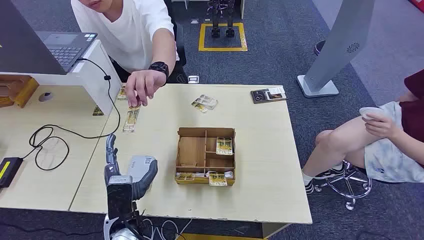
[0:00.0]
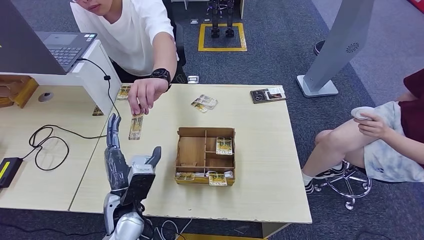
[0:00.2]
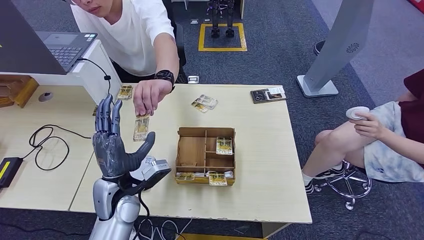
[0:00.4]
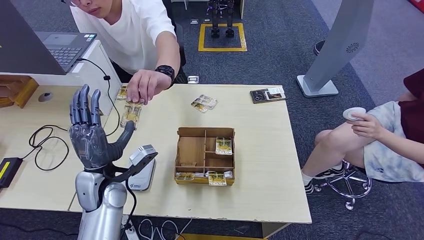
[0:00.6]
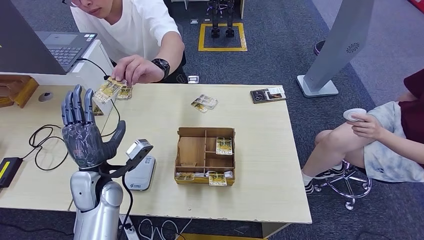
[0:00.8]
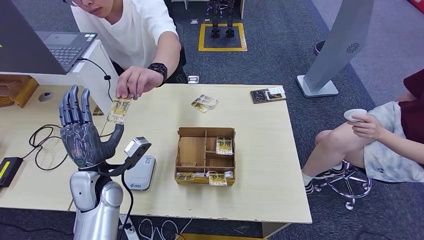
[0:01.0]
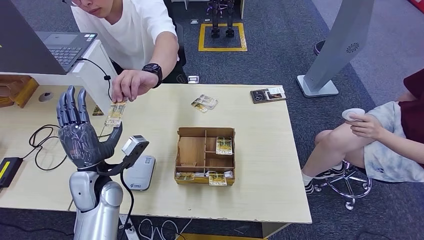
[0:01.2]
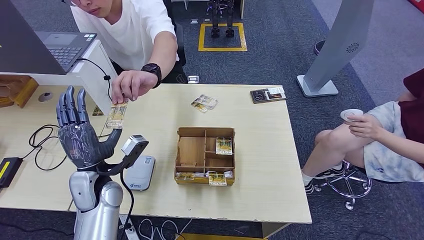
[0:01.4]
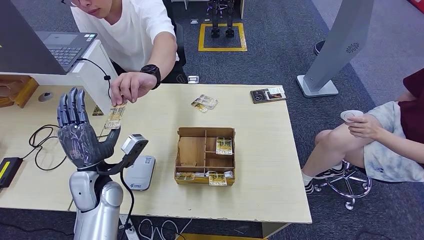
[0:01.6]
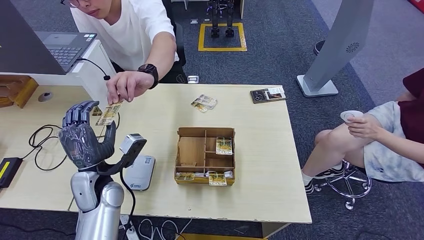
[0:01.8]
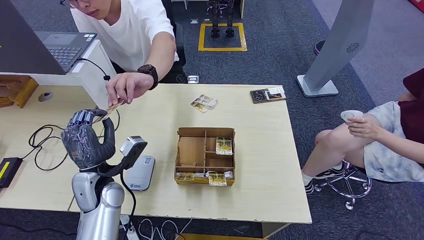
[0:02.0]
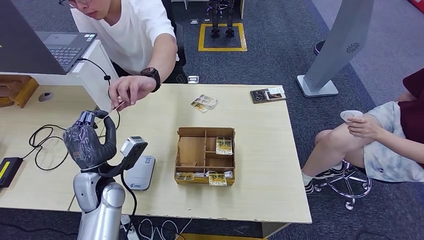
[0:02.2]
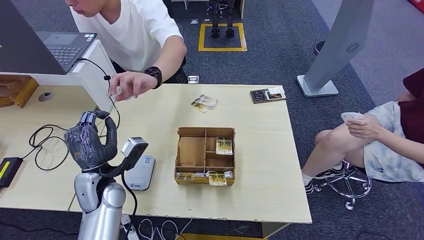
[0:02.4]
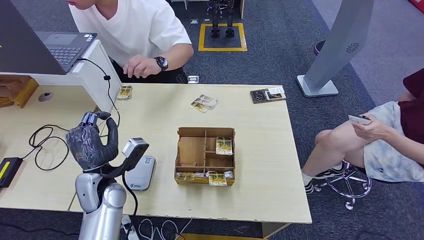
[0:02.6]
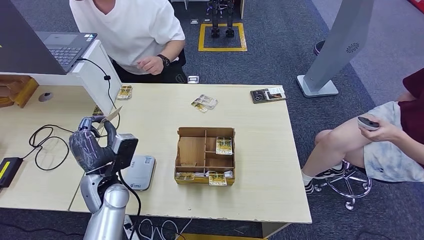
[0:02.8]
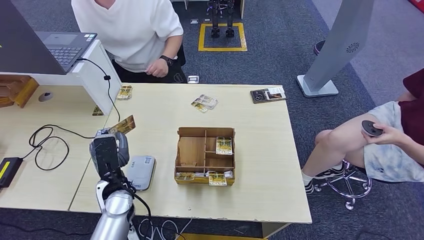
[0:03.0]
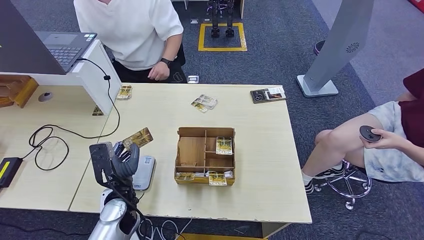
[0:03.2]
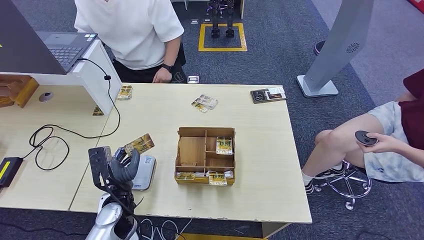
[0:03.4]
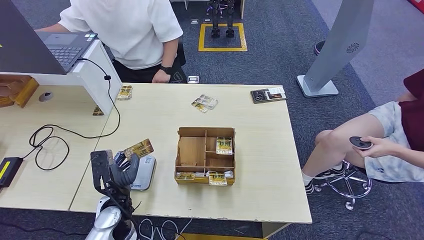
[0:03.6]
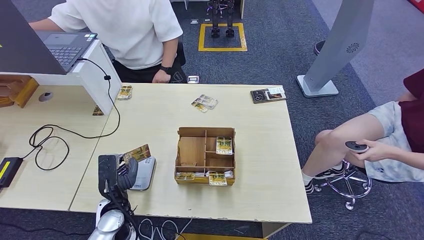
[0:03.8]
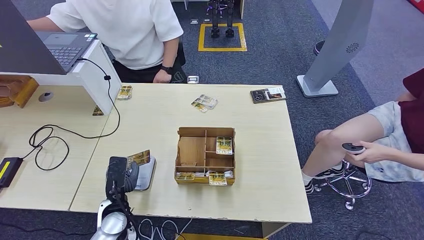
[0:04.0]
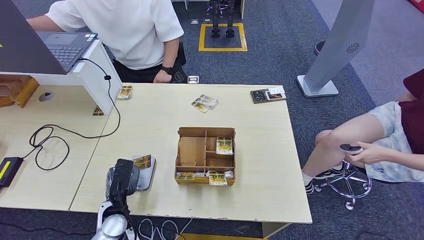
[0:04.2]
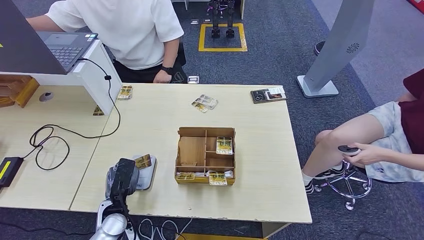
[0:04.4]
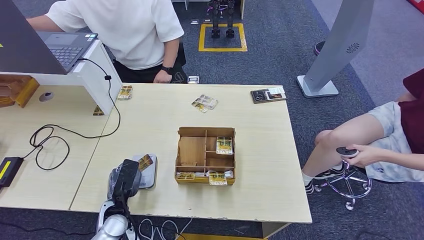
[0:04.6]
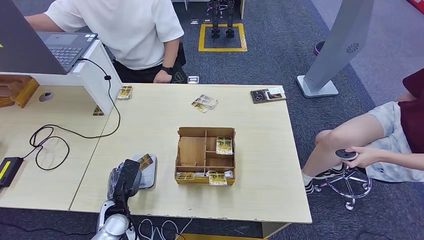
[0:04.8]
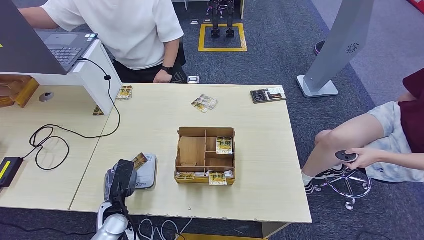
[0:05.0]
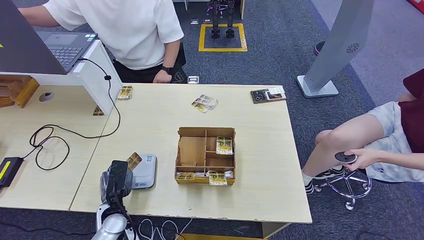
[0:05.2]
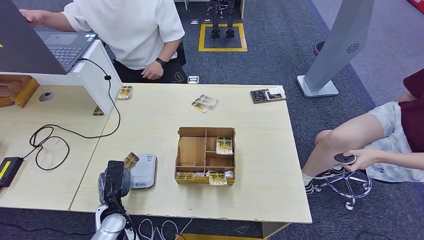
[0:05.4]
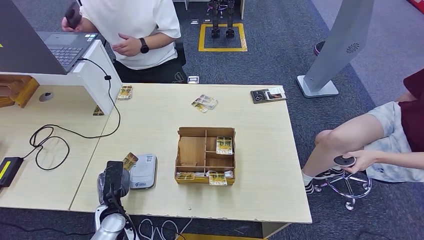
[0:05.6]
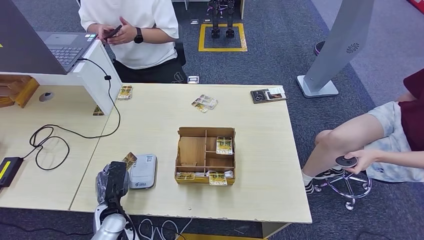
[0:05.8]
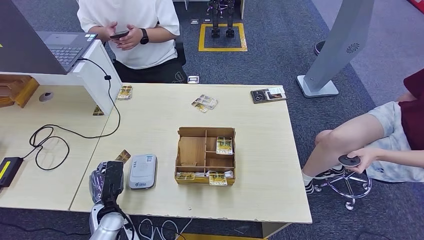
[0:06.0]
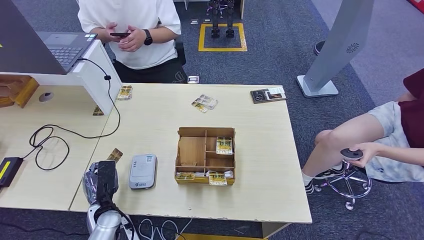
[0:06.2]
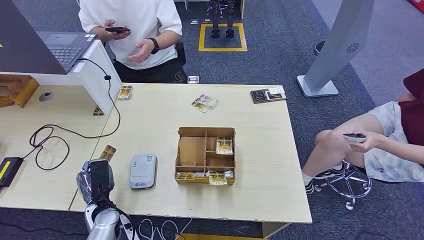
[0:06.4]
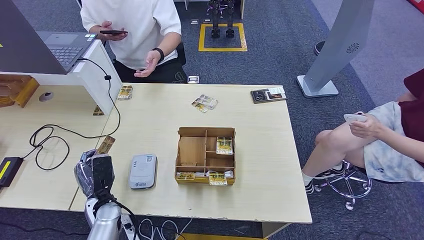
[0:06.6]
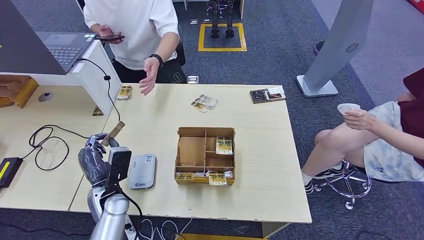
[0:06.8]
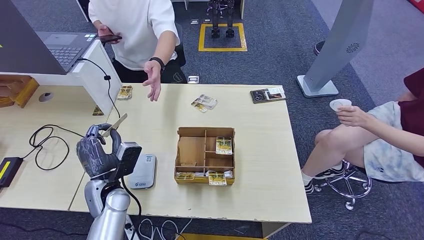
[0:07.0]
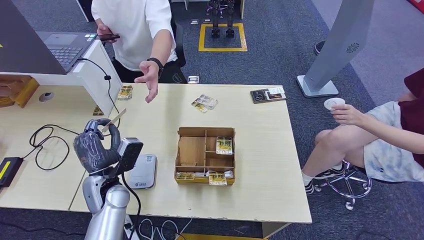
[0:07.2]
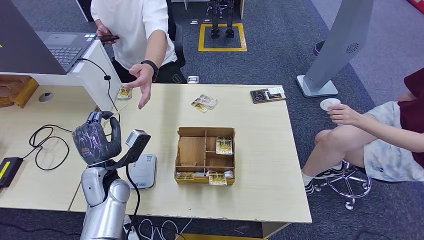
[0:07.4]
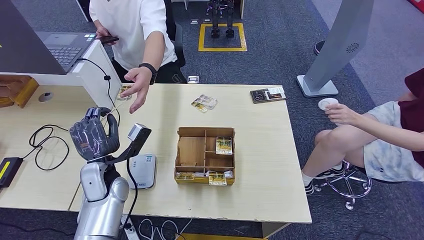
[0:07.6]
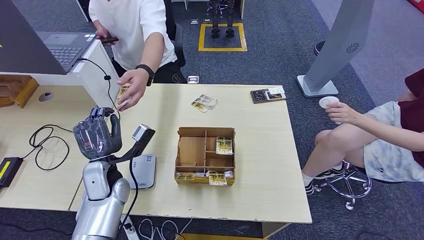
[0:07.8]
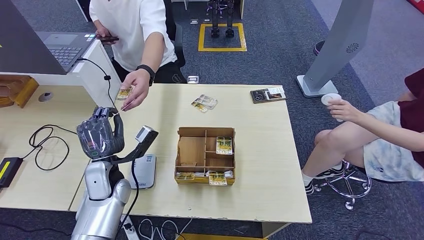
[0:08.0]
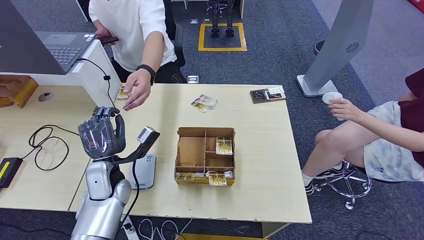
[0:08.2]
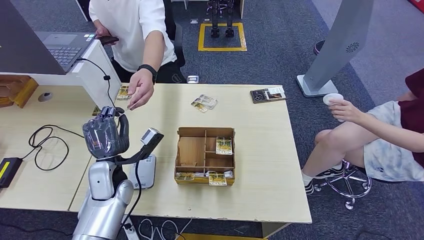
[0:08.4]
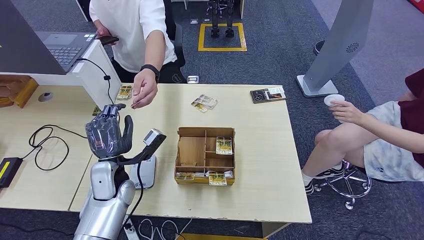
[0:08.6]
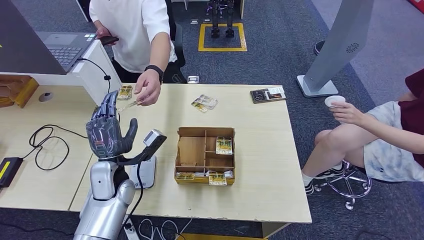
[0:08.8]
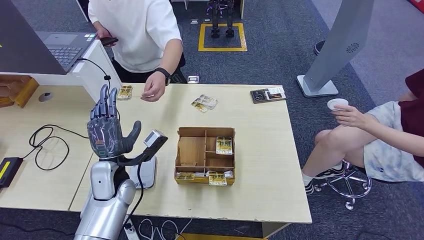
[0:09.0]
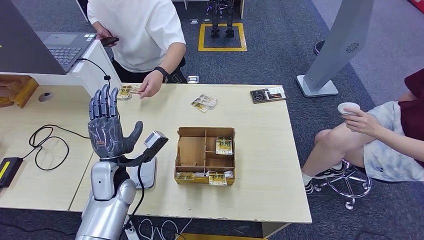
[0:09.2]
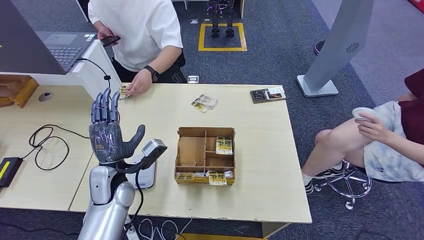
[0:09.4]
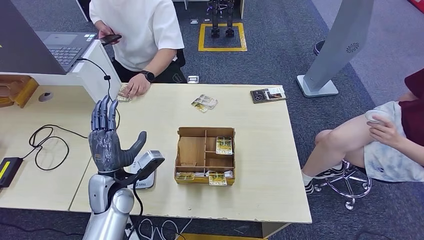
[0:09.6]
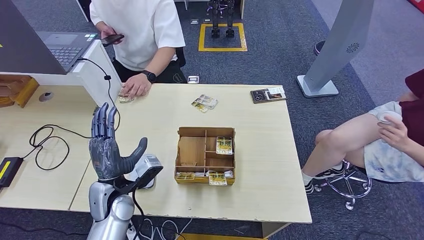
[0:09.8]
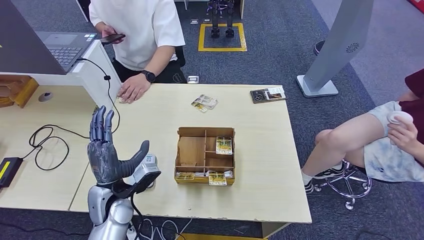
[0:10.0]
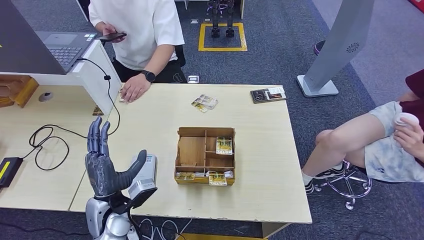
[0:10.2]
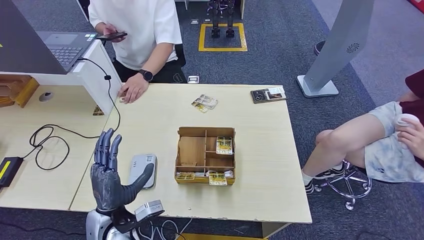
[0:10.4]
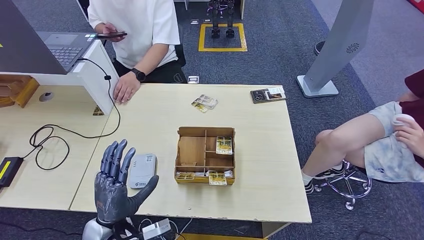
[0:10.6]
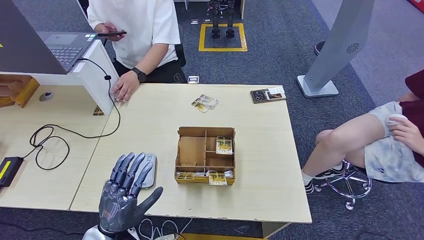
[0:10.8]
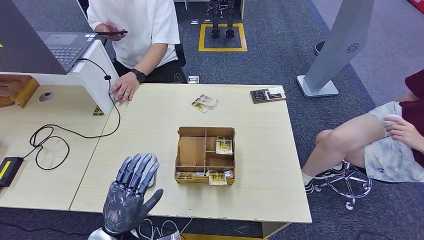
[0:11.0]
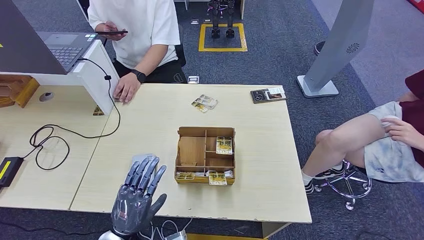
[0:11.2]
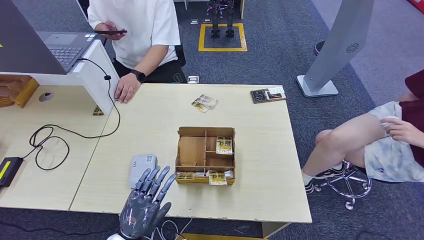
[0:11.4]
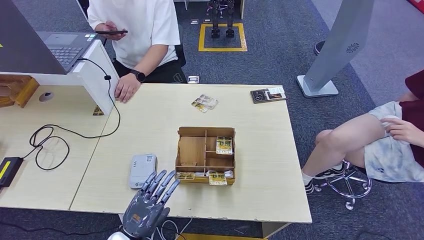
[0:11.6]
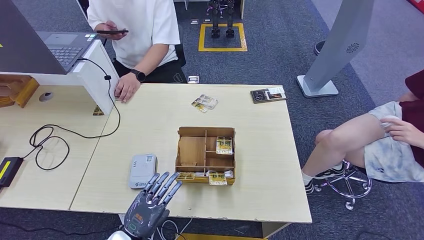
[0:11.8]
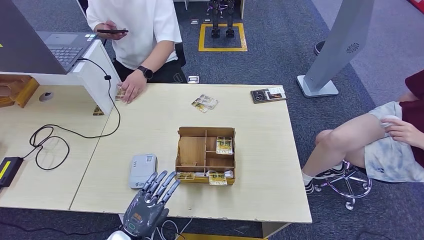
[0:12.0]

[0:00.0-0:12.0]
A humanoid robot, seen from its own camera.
Step, 0:00.0 to 0:02.8: Take the ID card from the person's hand.
Step, 0:03.0 to 0:06.2: Place the ID card on the card reader.
Step, 0:06.4 to 0:09.0: Hand the ID card to the person.
0:01.6 to 0:03.0: The left hand changes place by some 5 cm.
0:03.0 to 0:04.4: The left hand shifts roughly 10 cm downward.
0:04.4 to 0:06.0: There are only small adjustments of the hands.
0:06.0 to 0:07.6: The left hand moves upward and forward, about 15 cm.
0:07.6 to 0:09.0: The hands move only a little.
0:09.0 to 0:10.4: The left hand shifts roughly 10 cm backward.
0:10.4 to 0:12.0: The left hand changes place by roughly 5 cm.

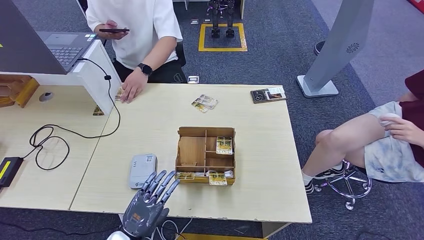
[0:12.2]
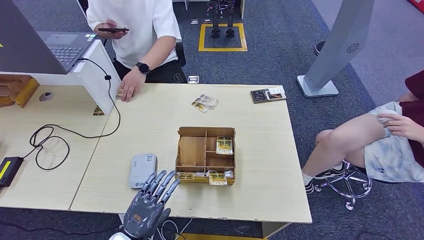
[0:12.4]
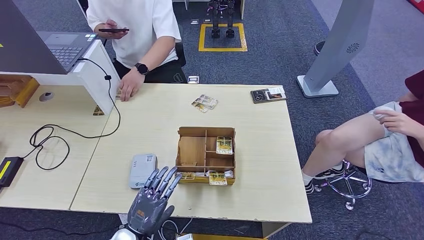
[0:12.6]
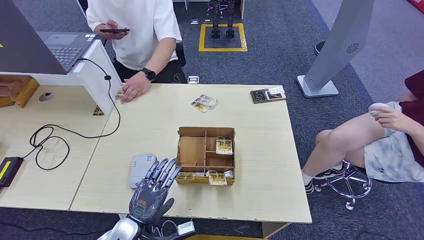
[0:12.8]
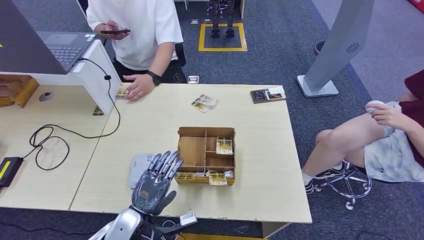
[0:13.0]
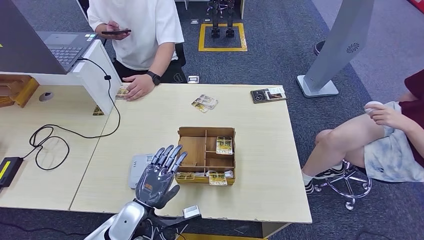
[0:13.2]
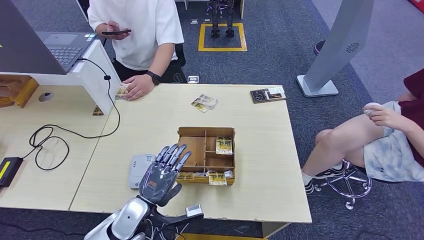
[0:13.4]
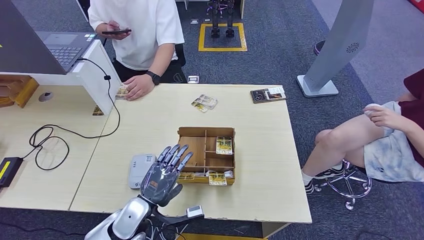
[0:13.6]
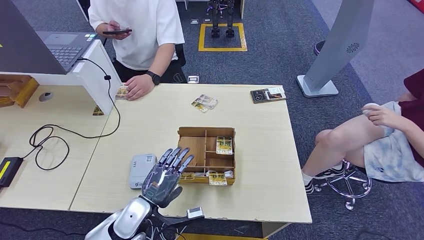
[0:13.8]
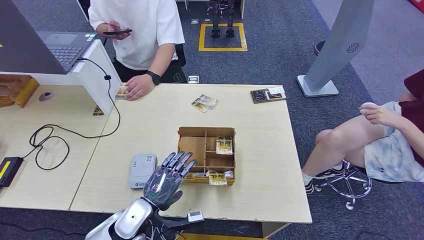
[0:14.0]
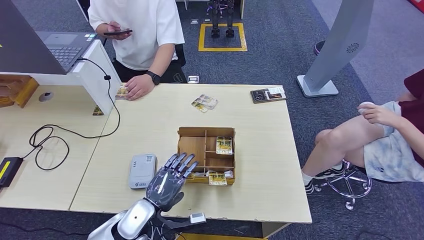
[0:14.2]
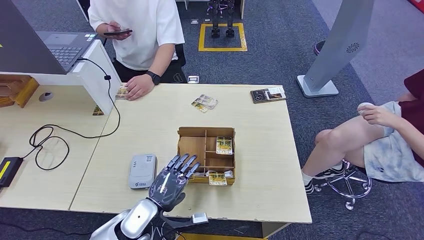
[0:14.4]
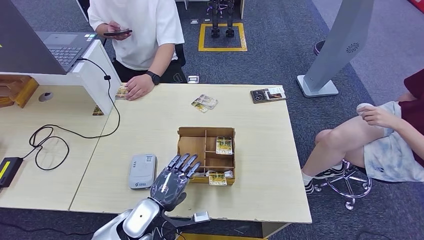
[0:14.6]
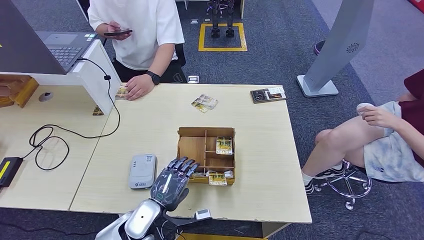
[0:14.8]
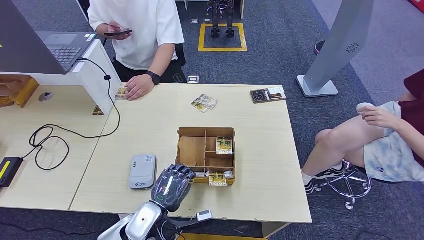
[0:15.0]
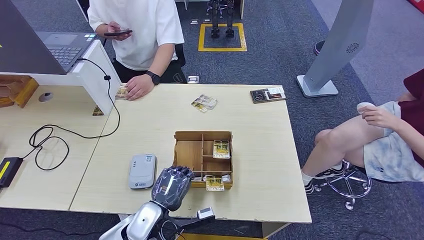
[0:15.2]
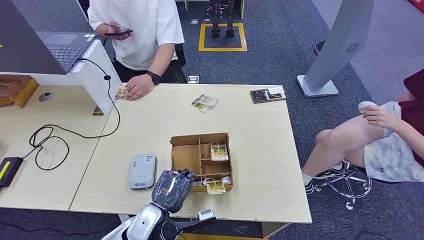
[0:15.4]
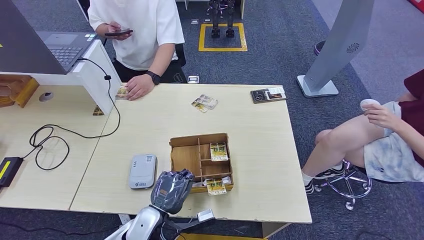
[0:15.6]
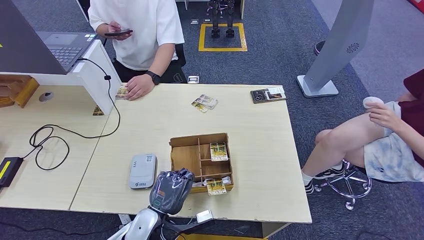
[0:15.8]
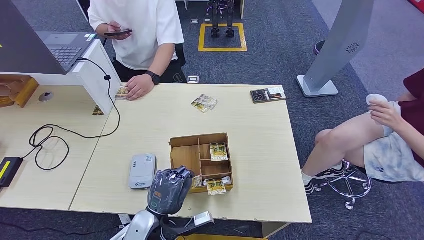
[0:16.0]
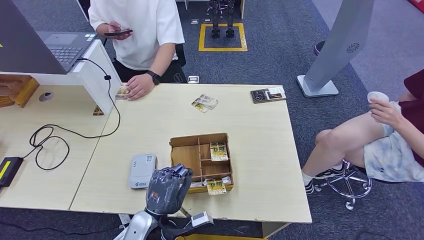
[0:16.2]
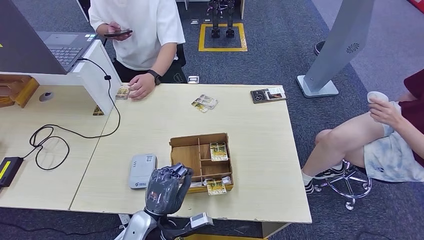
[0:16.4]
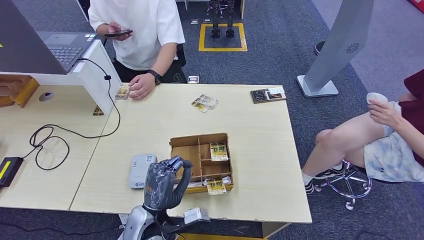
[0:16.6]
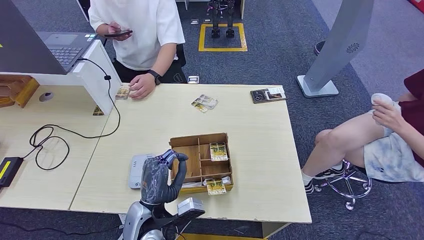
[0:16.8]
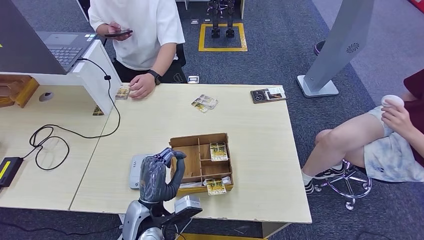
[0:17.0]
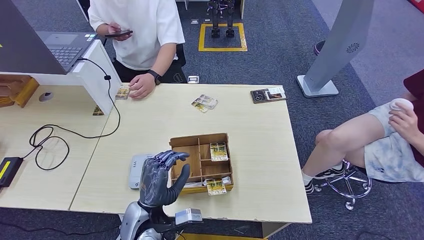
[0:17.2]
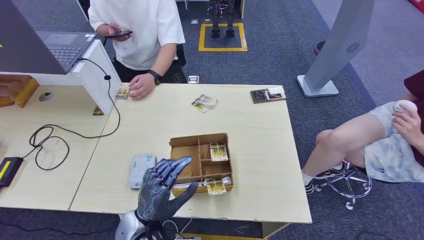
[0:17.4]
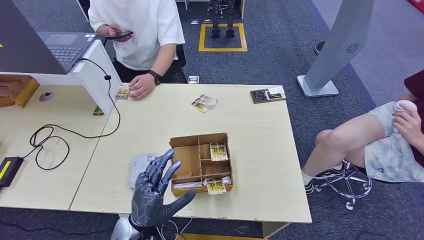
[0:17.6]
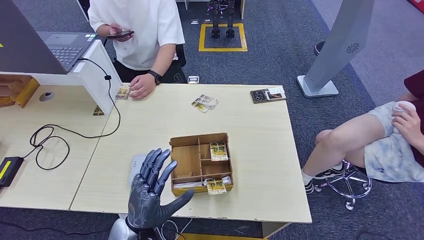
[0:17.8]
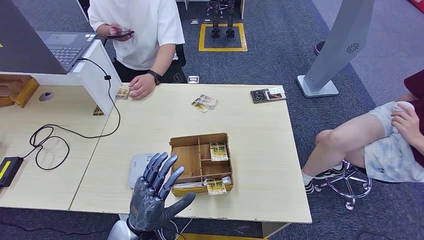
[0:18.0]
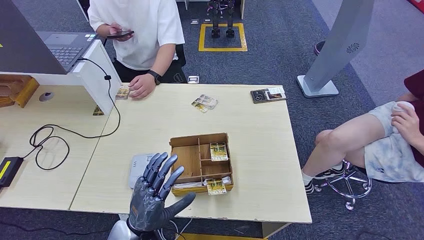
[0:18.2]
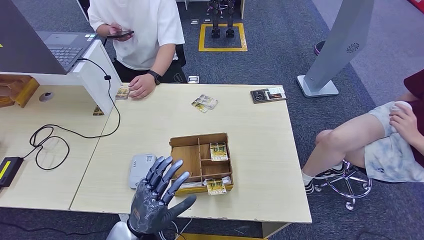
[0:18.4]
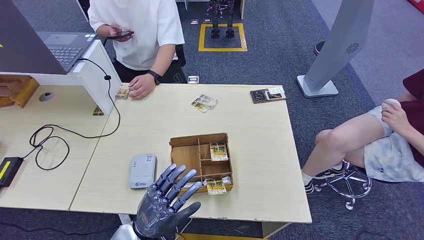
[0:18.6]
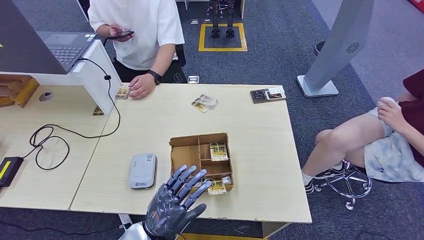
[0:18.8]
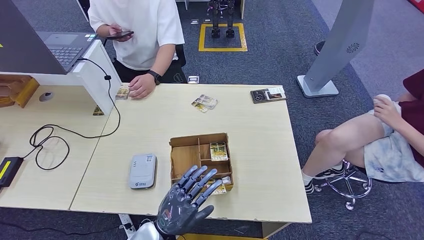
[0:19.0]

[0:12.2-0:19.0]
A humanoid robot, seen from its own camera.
0:12.2 to 0:13.6: The left hand shifts about 5 cm forward.
0:13.6 to 0:15.0: There are only small adjustments of the hands.
0:17.6 to 0:19.0: The hands stay close to where they were, moving slightly.
